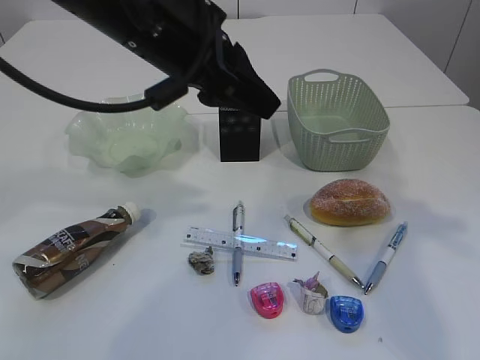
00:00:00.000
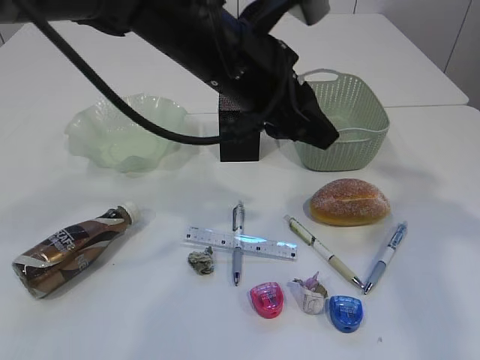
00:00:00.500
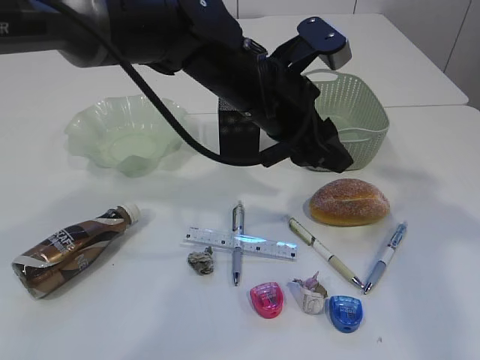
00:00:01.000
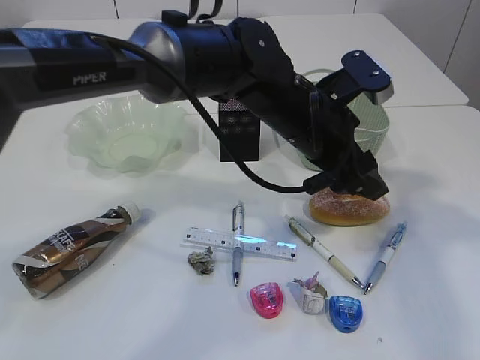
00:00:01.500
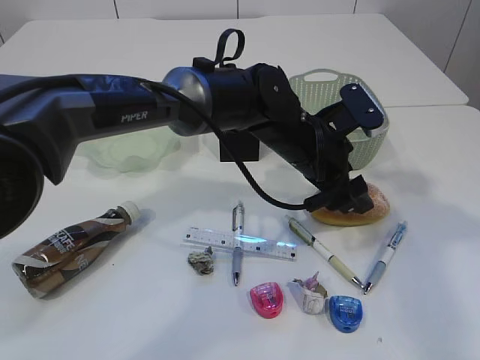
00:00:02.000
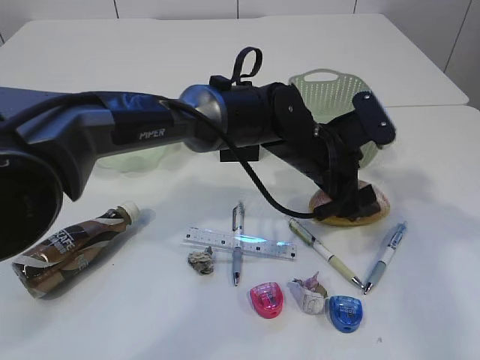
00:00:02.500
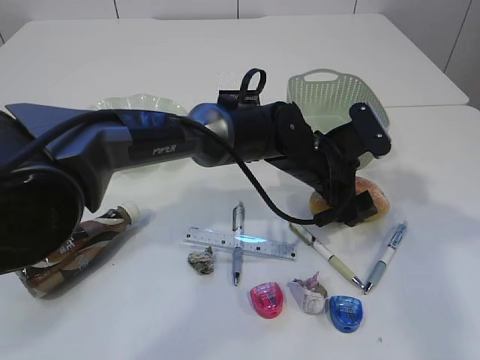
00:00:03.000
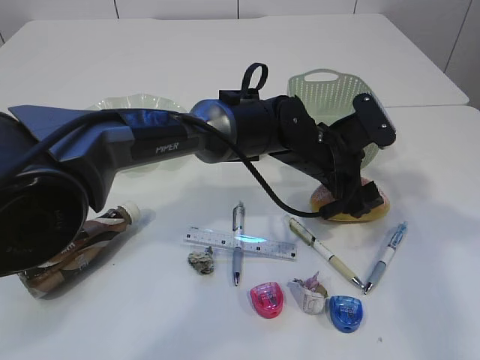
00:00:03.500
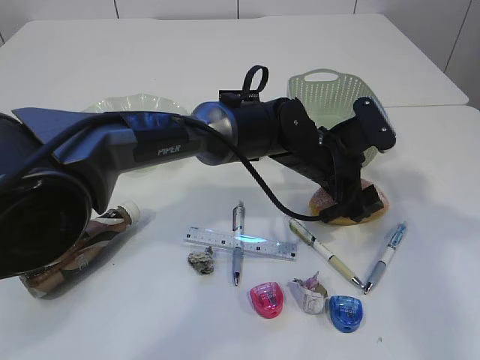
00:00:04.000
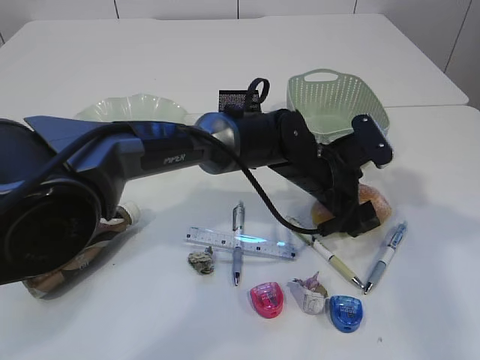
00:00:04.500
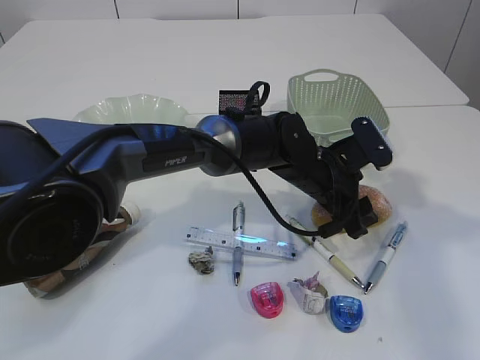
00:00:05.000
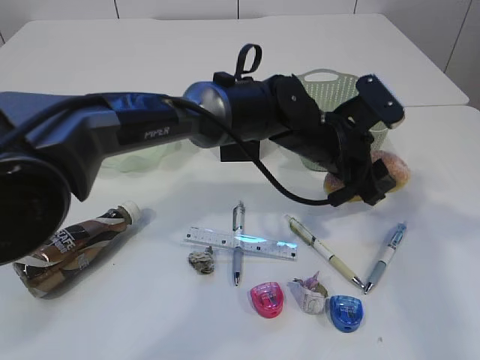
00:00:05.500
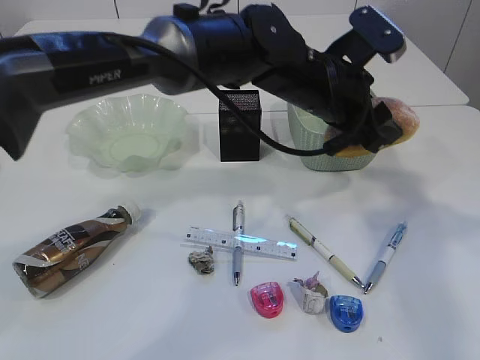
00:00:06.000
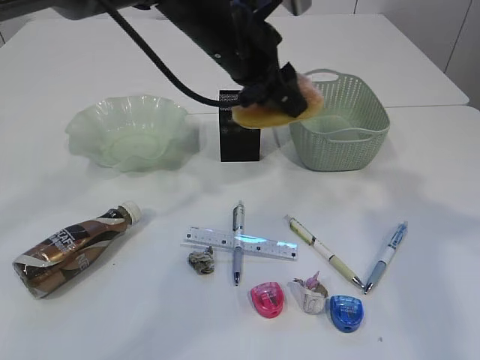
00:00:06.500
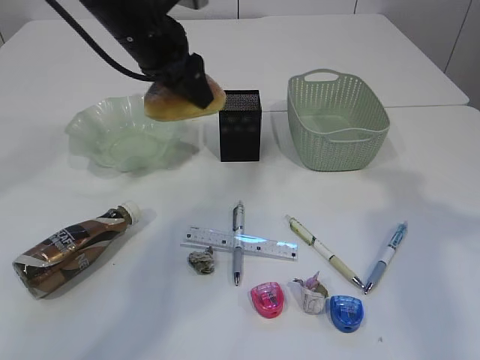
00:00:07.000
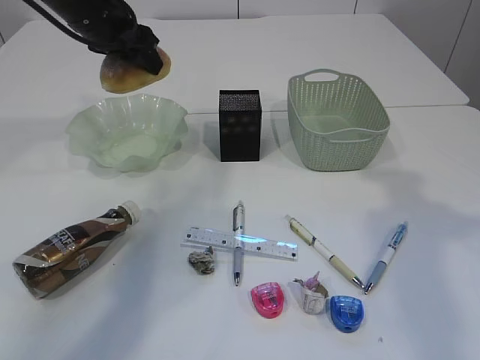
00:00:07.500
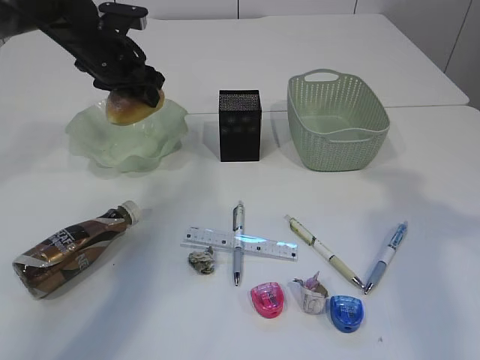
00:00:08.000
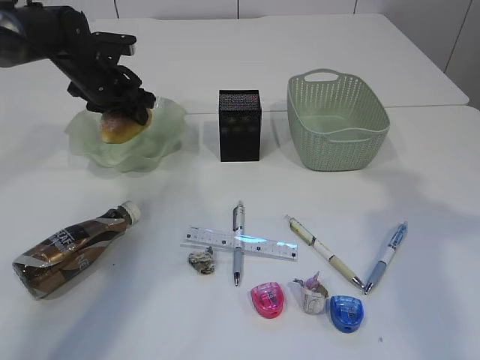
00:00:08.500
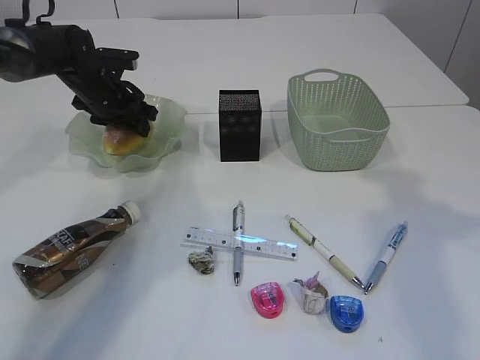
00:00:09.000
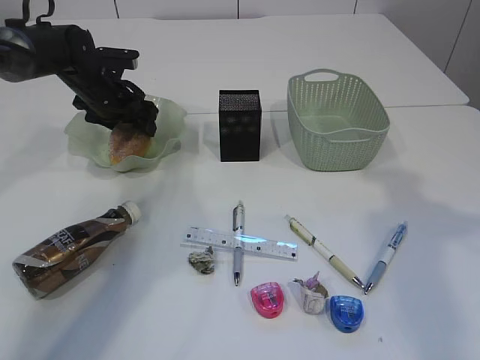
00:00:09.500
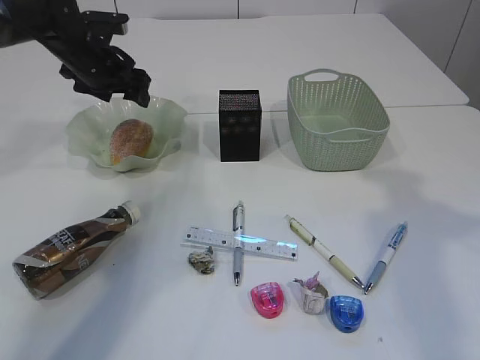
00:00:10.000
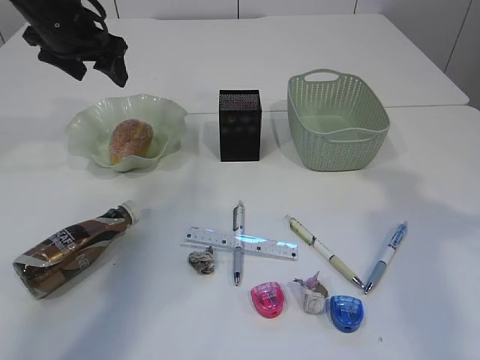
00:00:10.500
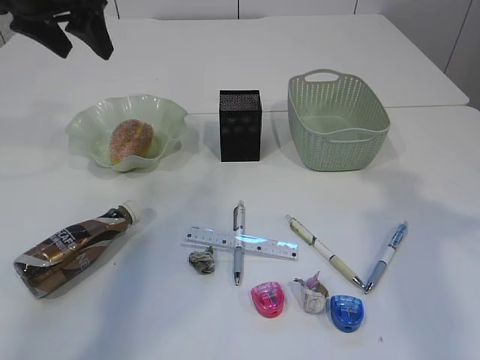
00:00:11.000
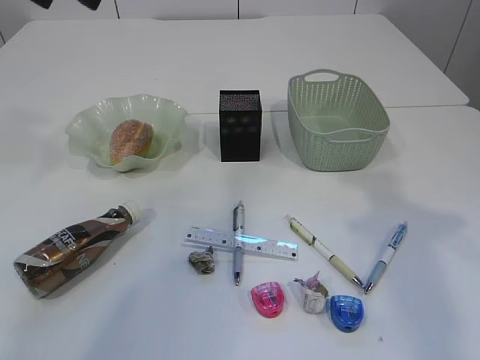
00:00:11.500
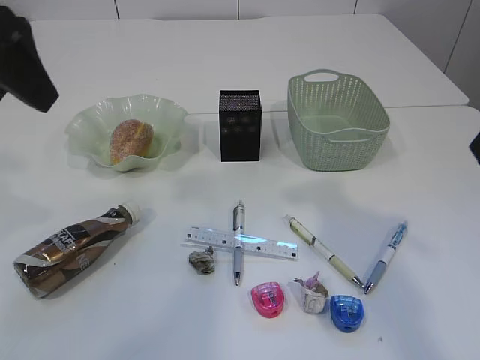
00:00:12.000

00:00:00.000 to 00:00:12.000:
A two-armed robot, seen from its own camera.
Step, 00:00:07.000 to 00:00:10.500: place the bread in the plate.
00:00:00.000 to 00:00:02.000: The left gripper heads downward and to the right, covering approximately 20 cm, and opens.
00:00:04.000 to 00:00:06.000: The left gripper travels upward by approximately 10 cm, and closes its fingers.
00:00:06.000 to 00:00:08.000: The left gripper travels to the left and forward by approximately 30 cm.
00:00:08.000 to 00:00:10.000: The left gripper opens.
00:00:10.000 to 00:00:12.000: The right gripper goes some 10 cm to the left; the left gripper shifts some 30 cm backward and upward.

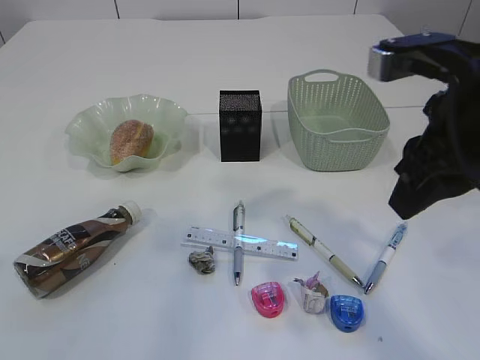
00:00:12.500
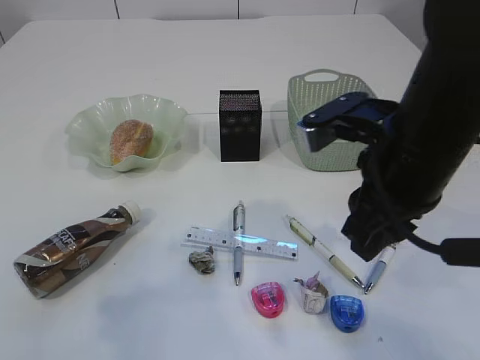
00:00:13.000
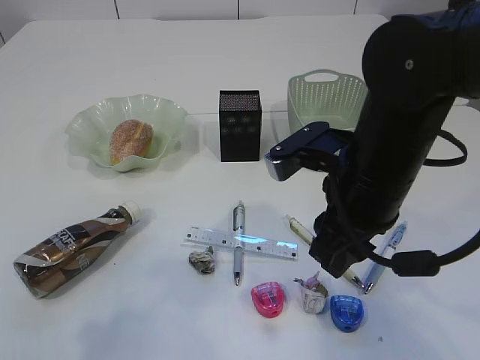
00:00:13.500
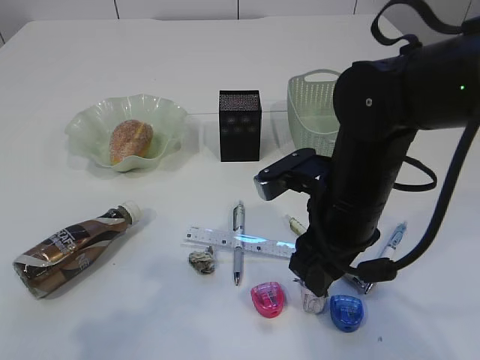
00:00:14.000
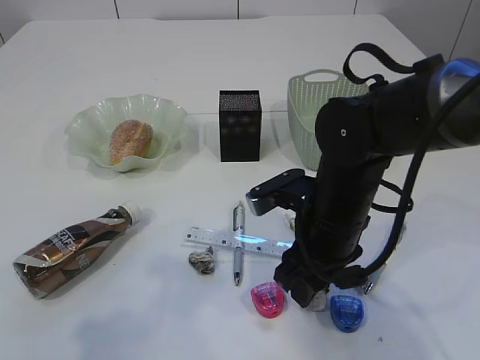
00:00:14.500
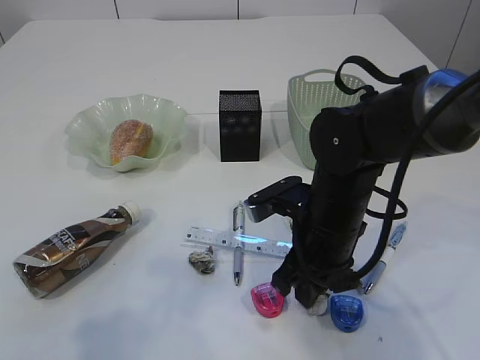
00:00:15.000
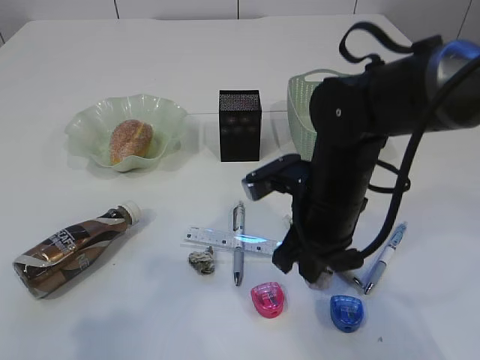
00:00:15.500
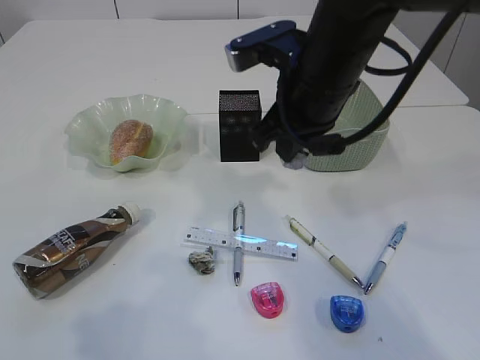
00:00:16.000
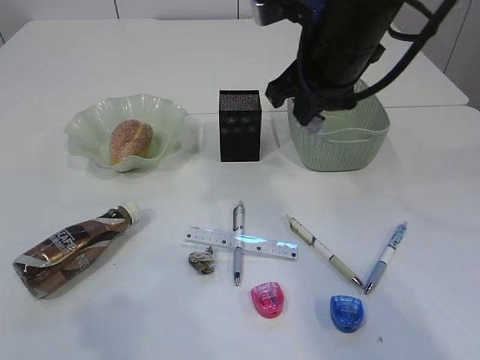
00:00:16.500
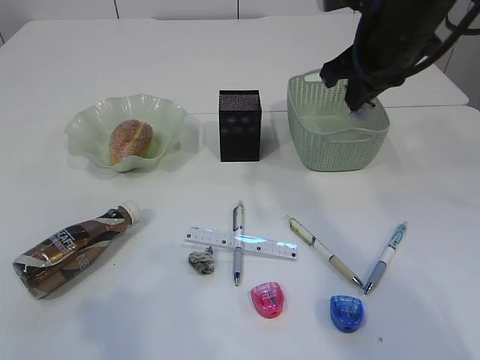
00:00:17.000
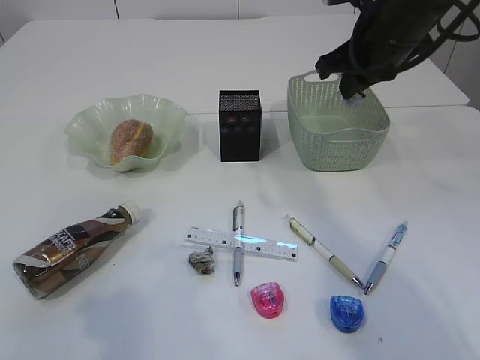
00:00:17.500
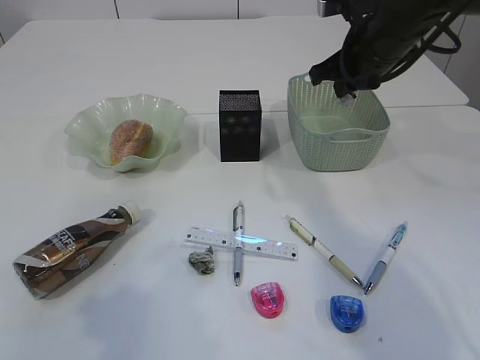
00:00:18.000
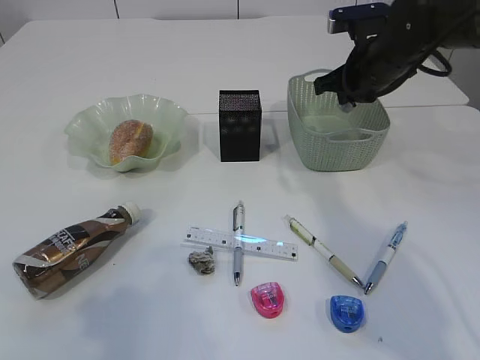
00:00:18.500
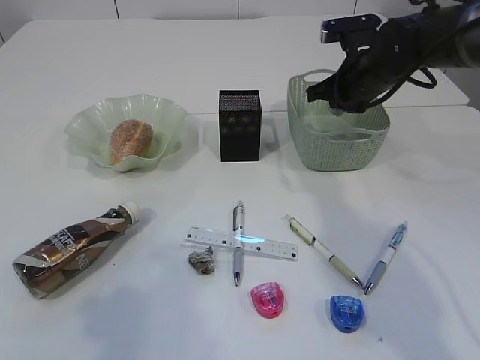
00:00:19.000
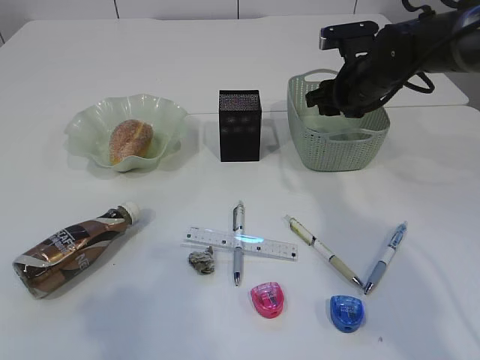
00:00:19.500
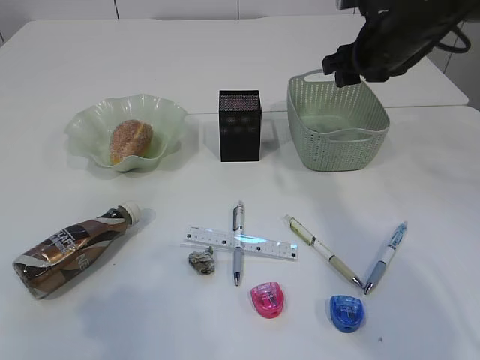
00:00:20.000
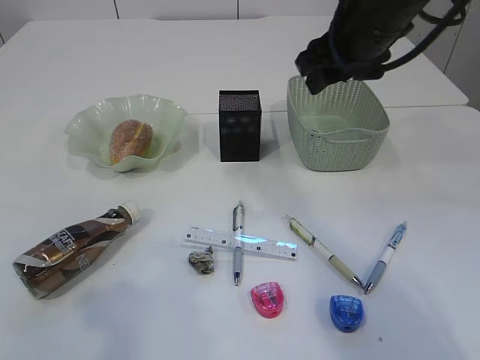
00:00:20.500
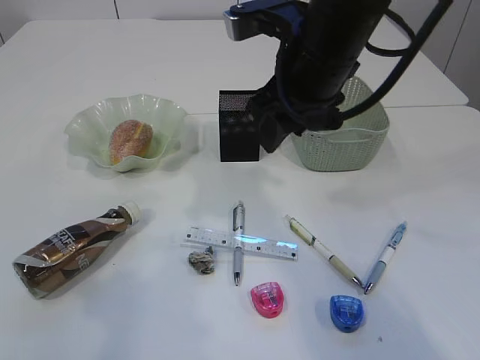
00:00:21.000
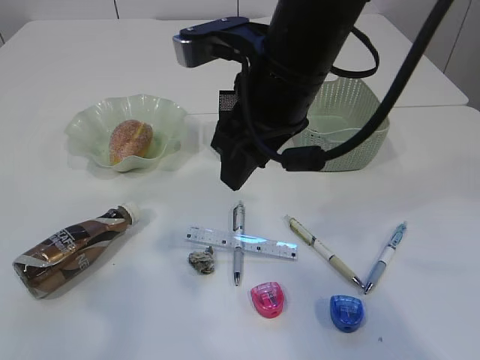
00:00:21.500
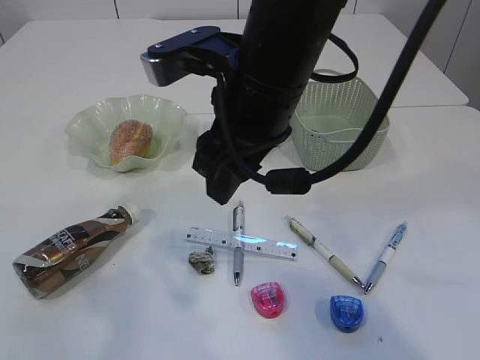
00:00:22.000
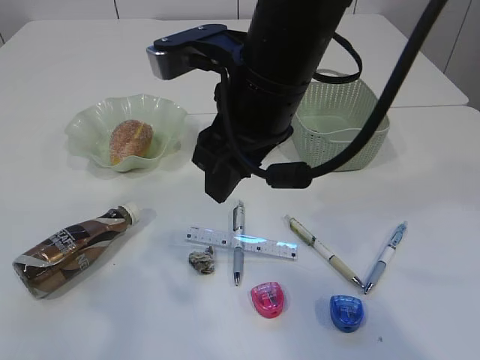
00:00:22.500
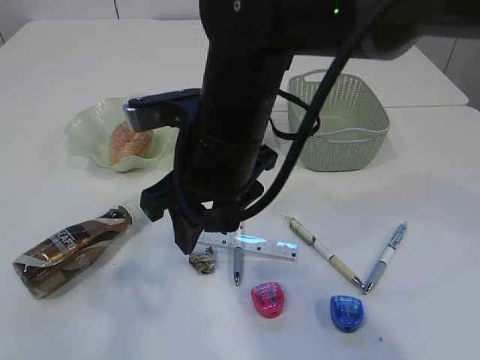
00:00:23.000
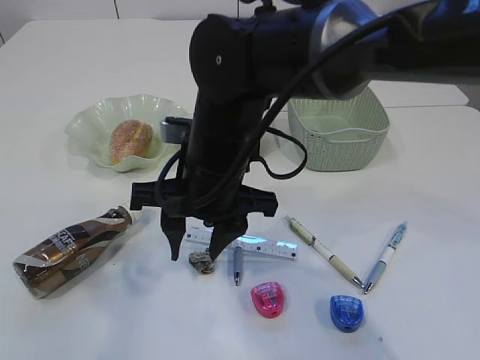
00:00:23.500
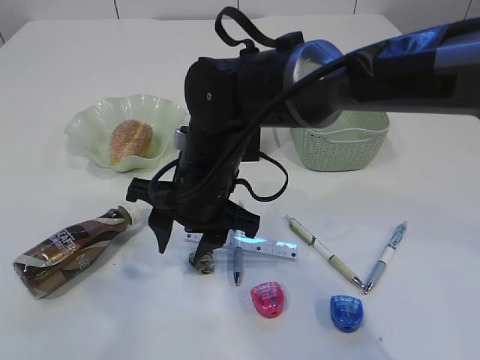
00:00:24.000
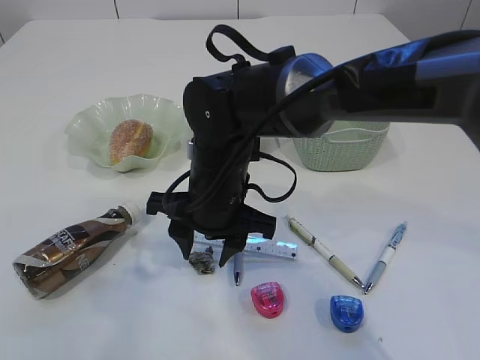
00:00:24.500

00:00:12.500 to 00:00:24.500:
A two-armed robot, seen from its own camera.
Step, 00:00:12.500 to 00:00:15.500: Pick up the waste paper.
Step, 00:00:16.000 to 00:00:20.500: Place the waste paper in the basket.
00:00:12.500 to 00:00:14.500: The right gripper moves downward and to the left, roughly 20 cm; the left gripper moves backward and downward, approximately 10 cm.
00:00:14.500 to 00:00:16.500: The right gripper shifts roughly 15 cm upward and forward, and closes.
00:00:16.500 to 00:00:18.500: The right gripper travels forward, to the right and downward by some 15 cm.
00:00:18.500 to 00:00:20.500: The right gripper shifts roughly 10 cm upward, backward and to the left, and opens.
00:00:20.500 to 00:00:22.500: The right gripper goes about 15 cm to the left and backward.
00:00:22.500 to 00:00:24.500: The right gripper travels downward by roughly 15 cm.

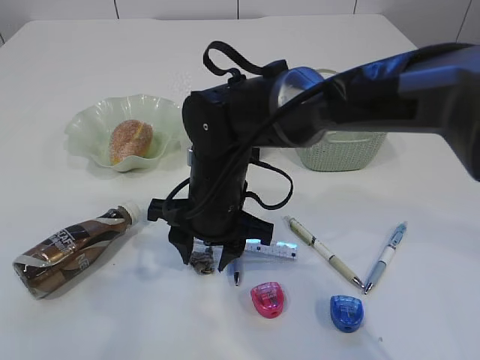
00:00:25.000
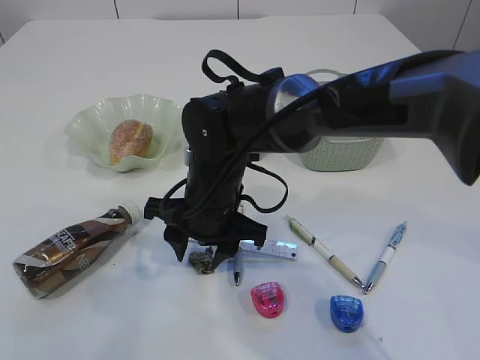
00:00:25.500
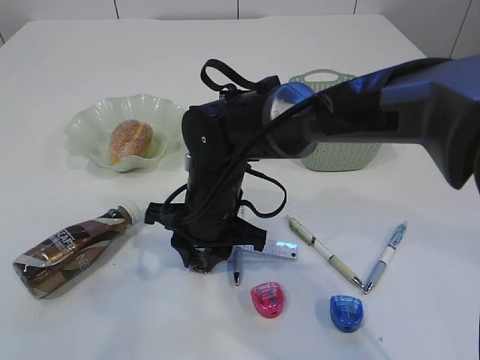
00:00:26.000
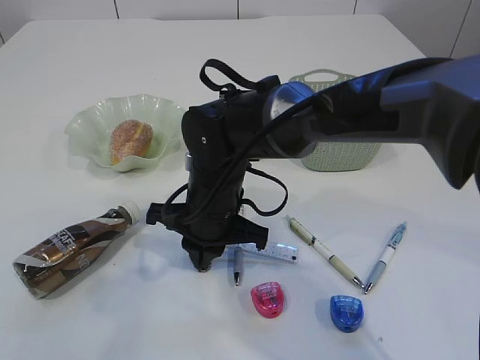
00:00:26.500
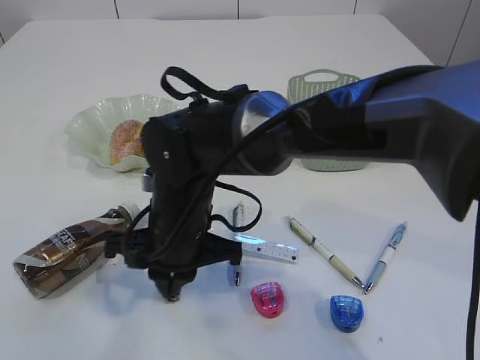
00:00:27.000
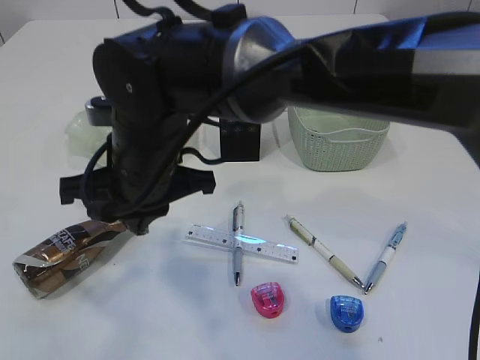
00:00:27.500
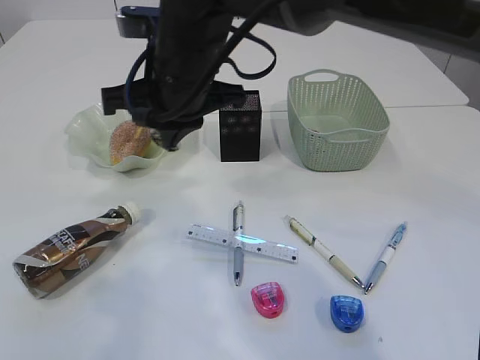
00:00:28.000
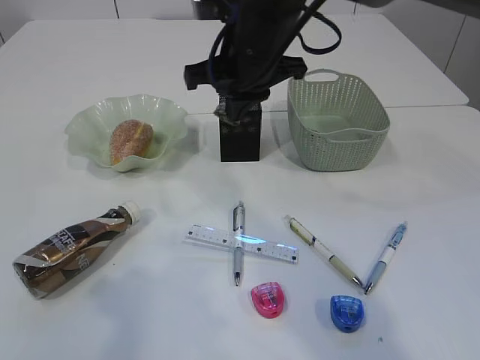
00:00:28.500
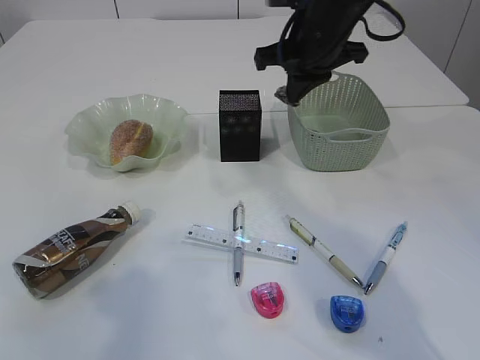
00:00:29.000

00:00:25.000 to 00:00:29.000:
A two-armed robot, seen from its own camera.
Step, 00:00:25.000 to 00:00:28.000: Pick up the waste paper.
00:00:25.000 to 00:00:27.000: The right gripper moves roughly 5 cm, and closes.
00:00:27.000 to 00:00:29.000: The right gripper heads to the right, forward and upward, covering about 25 cm.
